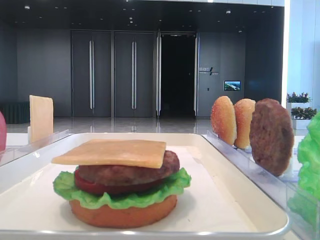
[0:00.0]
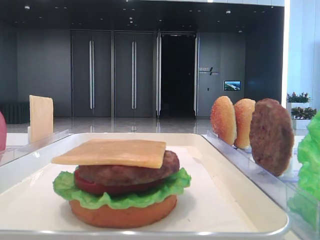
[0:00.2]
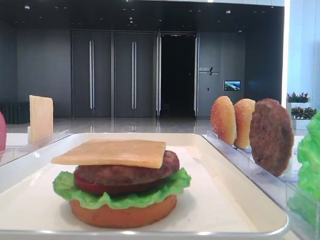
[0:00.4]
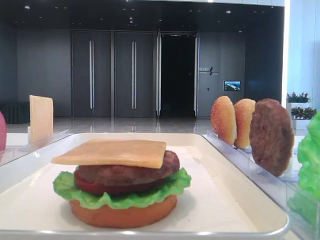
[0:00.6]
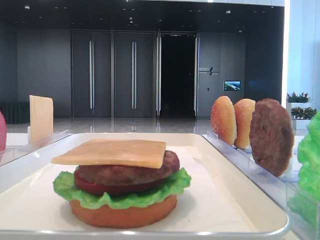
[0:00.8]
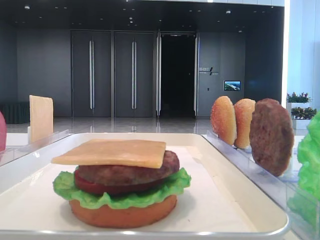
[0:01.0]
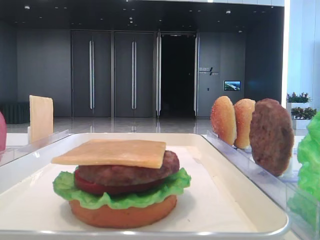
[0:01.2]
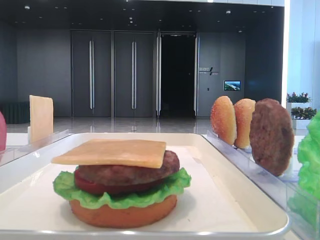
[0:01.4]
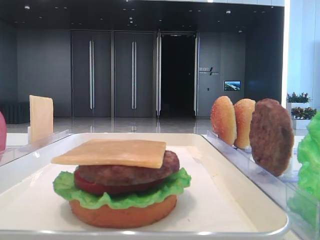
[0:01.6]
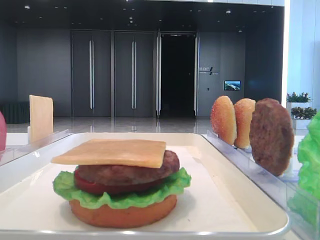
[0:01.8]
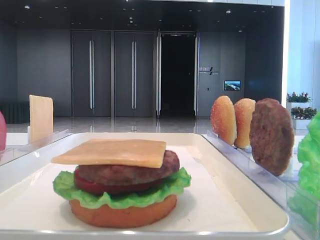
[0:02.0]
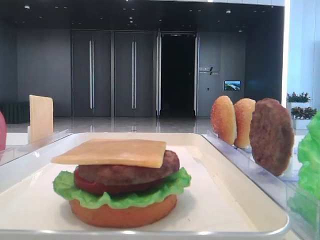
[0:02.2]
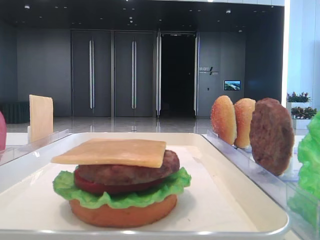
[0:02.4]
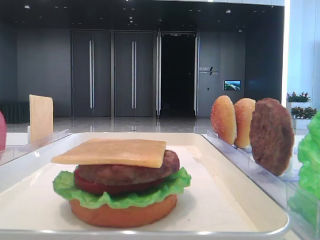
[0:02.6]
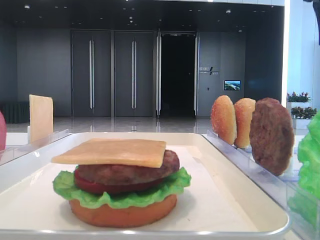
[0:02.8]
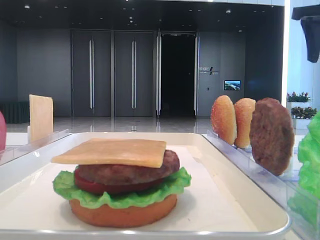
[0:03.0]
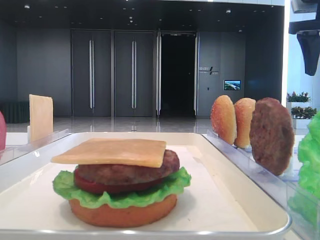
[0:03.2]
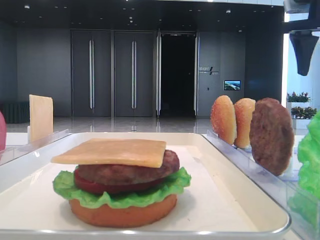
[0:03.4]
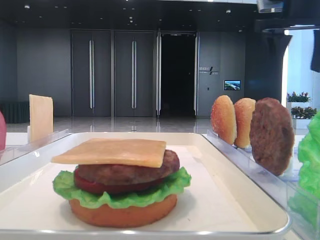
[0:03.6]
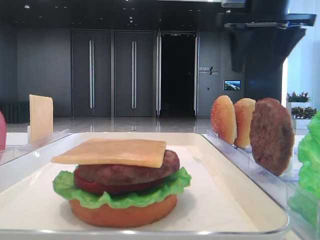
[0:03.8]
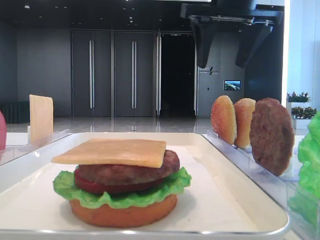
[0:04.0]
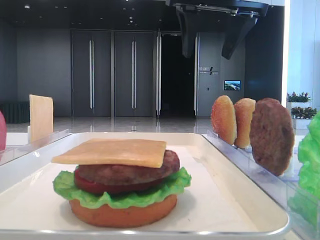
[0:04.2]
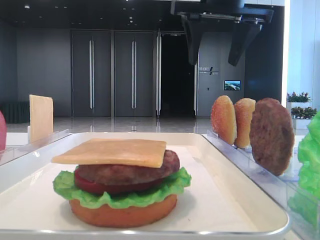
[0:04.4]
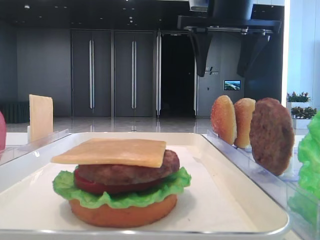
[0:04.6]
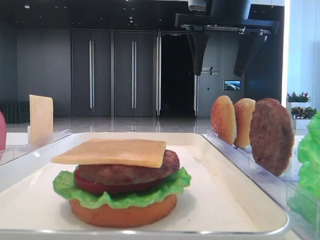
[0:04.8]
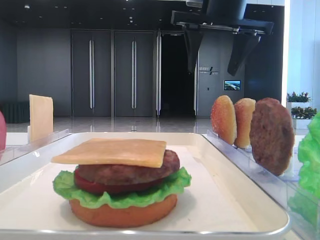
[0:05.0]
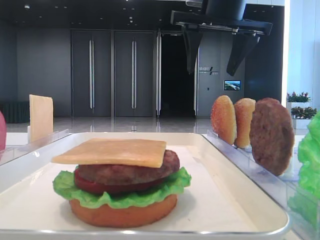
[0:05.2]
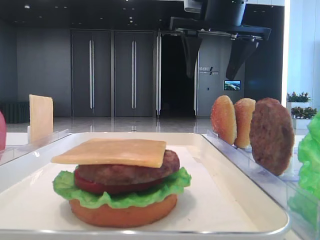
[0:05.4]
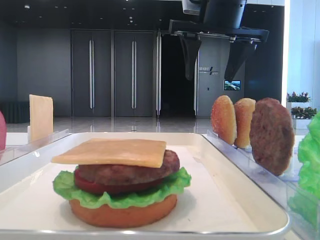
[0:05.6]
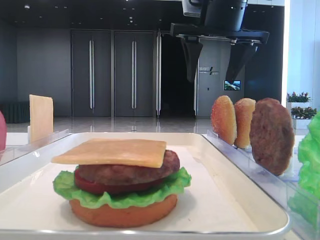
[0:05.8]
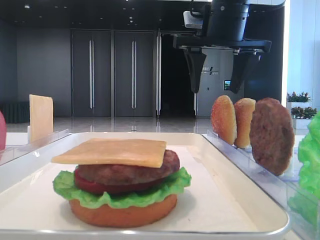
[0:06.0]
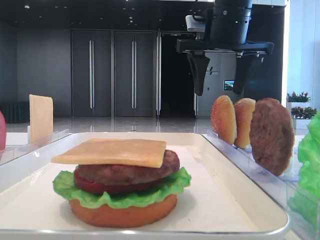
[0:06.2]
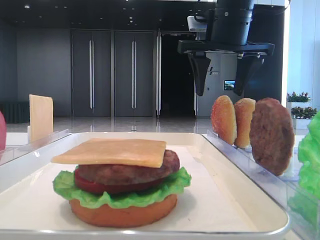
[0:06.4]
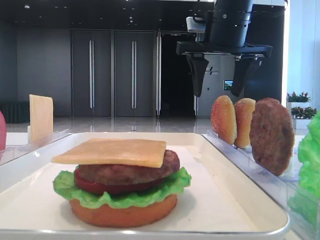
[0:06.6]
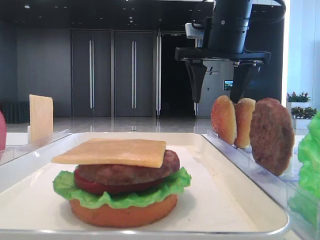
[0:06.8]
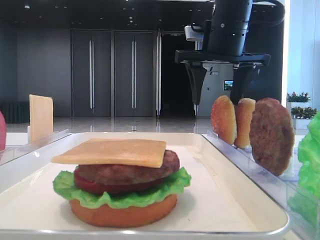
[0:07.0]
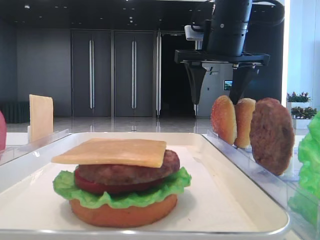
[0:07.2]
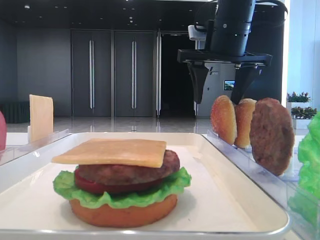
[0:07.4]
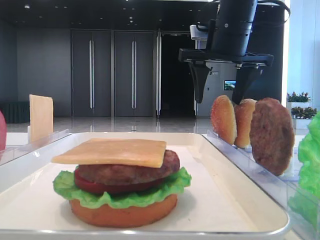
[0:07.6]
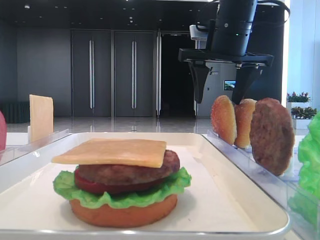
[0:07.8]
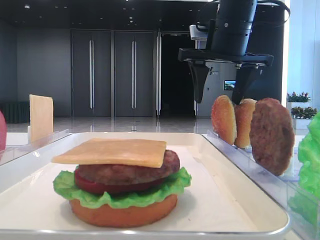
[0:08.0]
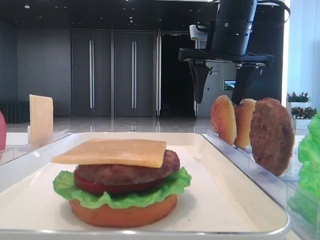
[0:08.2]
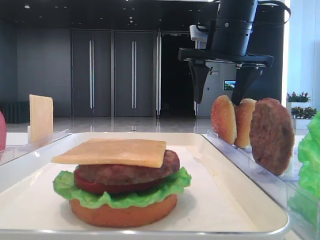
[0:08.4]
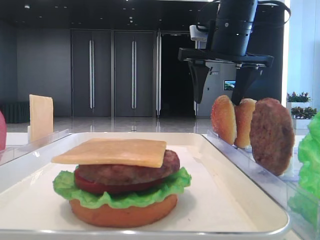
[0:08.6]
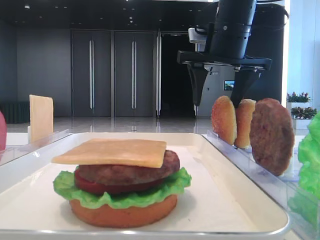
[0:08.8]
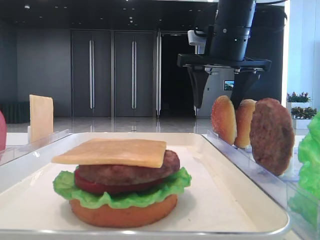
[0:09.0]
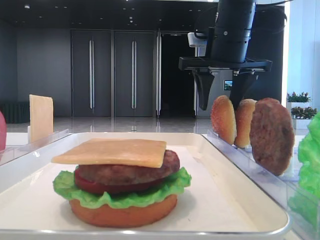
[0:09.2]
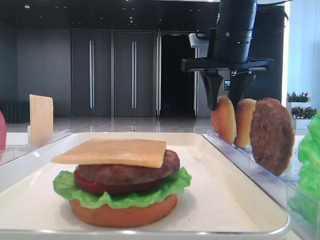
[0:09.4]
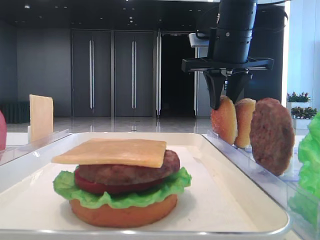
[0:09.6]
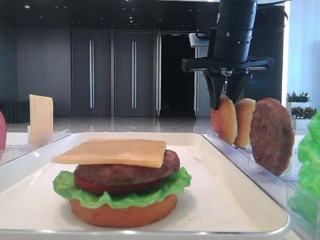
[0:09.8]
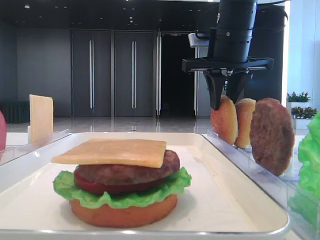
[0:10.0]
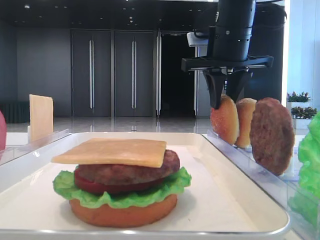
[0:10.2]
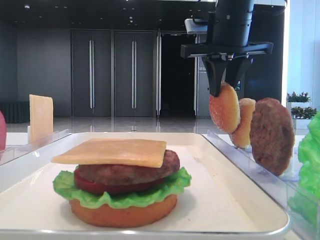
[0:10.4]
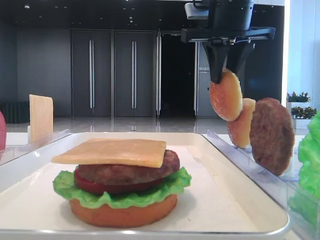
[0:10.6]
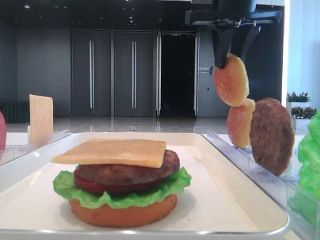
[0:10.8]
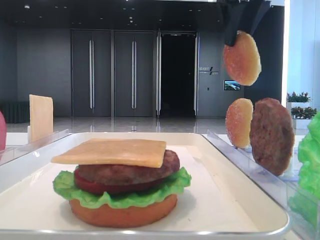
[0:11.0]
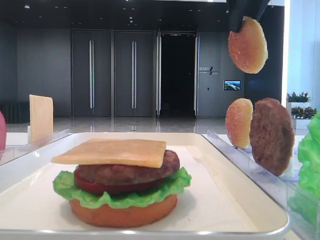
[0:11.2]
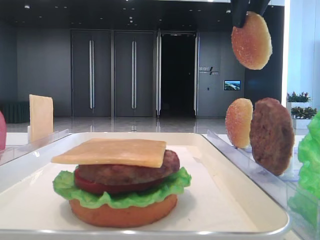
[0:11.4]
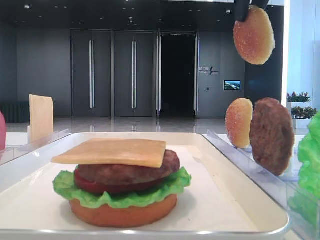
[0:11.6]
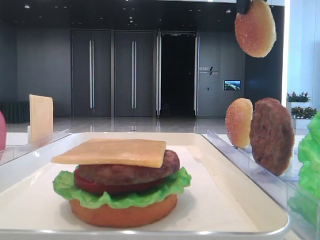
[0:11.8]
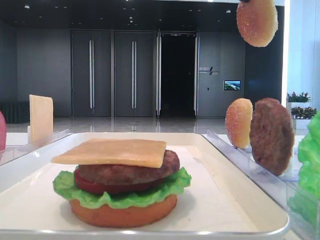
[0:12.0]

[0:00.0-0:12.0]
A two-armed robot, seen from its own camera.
Step, 0:00.0 to 0:10.0: Pick up the top bread slice with the right hand.
0:01.6 to 0:03.0: The right gripper shifts some 35 cm forward.
0:03.0 to 0:04.4: The right gripper is displaced to the left by roughly 20 cm.
0:04.4 to 0:06.0: The grippers move only a little.
0:06.0 to 0:07.6: The grippers stay close to where they were, moving slightly.
0:07.6 to 0:09.0: Both grippers stay about where they are.
0:09.0 to 0:10.4: The left gripper closes; the right gripper closes its fingers.
0:10.4 to 0:12.0: The right gripper travels upward and backward by roughly 15 cm.

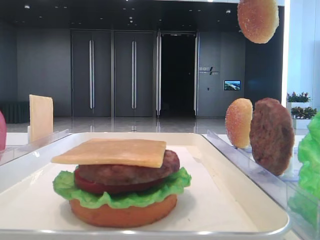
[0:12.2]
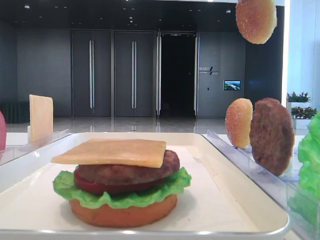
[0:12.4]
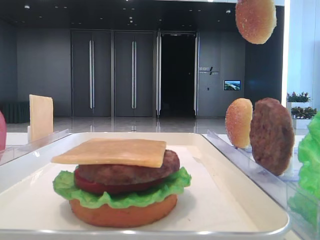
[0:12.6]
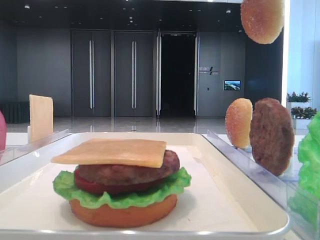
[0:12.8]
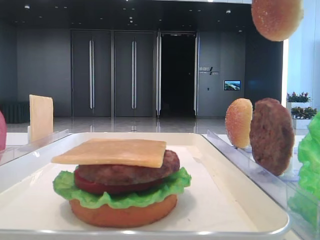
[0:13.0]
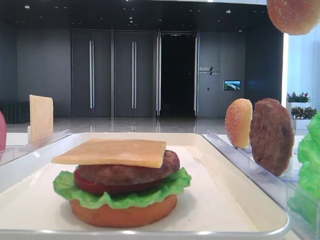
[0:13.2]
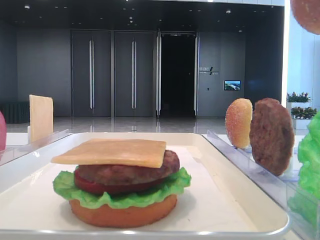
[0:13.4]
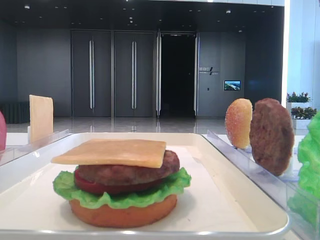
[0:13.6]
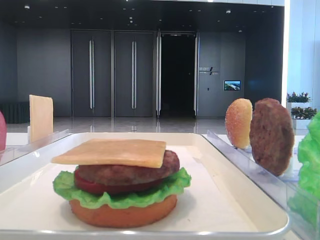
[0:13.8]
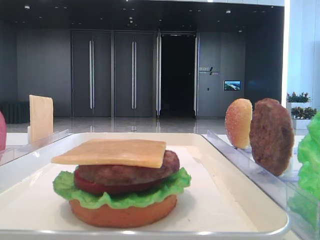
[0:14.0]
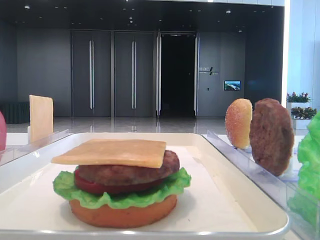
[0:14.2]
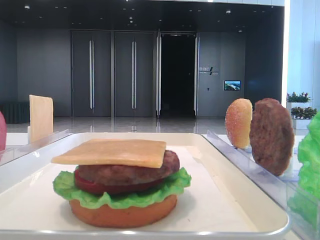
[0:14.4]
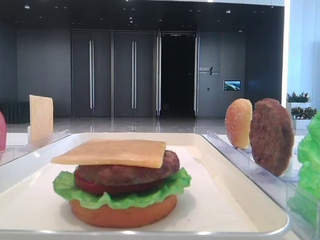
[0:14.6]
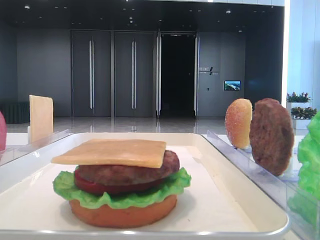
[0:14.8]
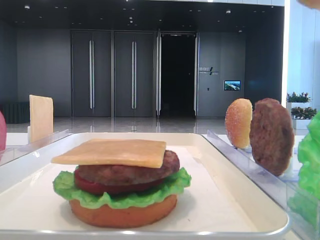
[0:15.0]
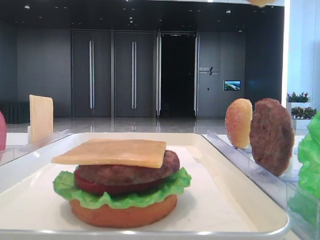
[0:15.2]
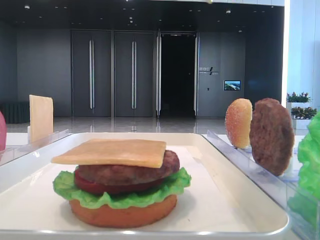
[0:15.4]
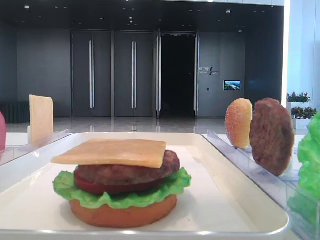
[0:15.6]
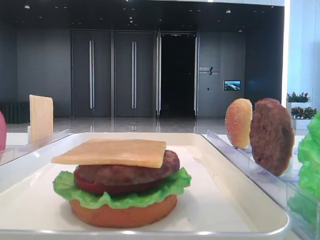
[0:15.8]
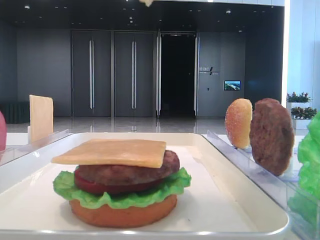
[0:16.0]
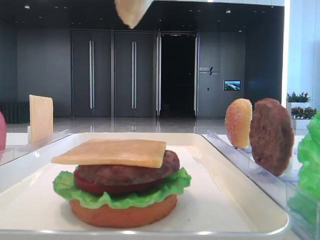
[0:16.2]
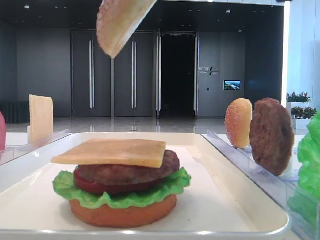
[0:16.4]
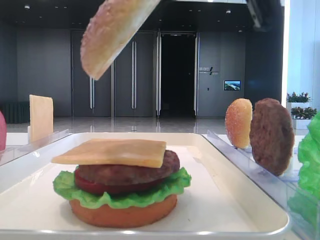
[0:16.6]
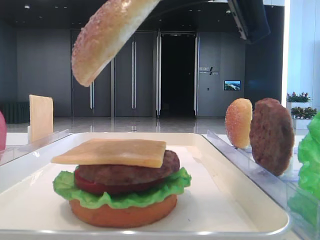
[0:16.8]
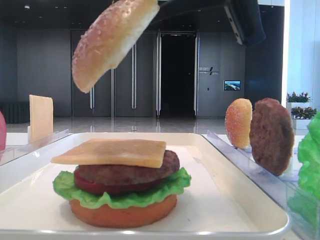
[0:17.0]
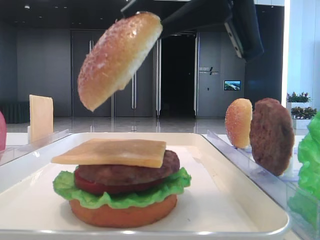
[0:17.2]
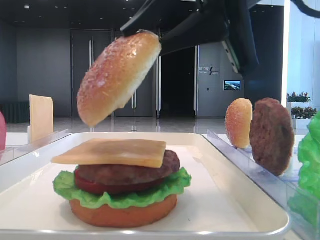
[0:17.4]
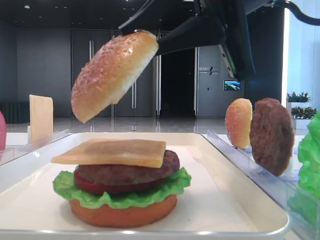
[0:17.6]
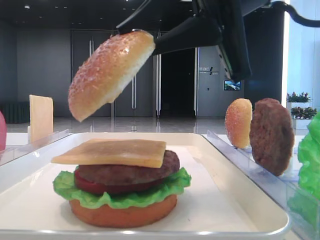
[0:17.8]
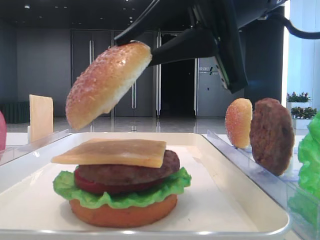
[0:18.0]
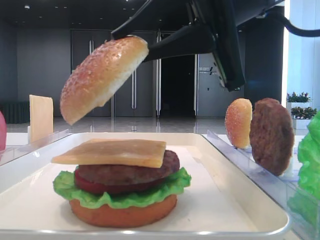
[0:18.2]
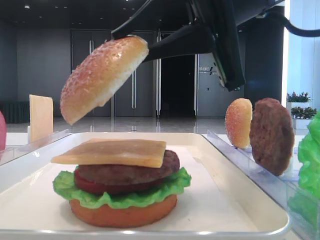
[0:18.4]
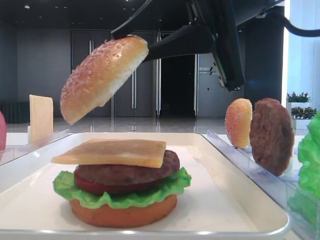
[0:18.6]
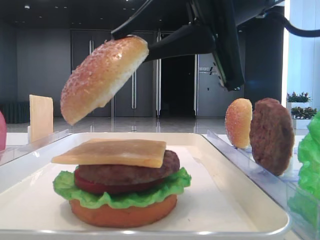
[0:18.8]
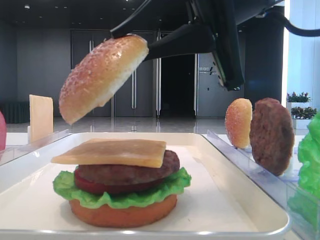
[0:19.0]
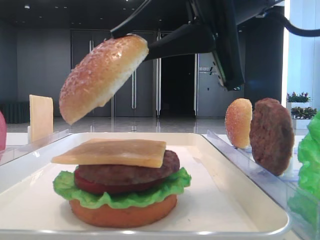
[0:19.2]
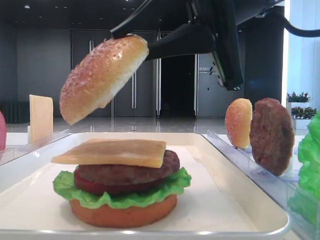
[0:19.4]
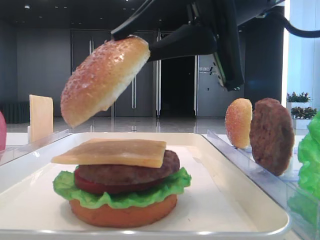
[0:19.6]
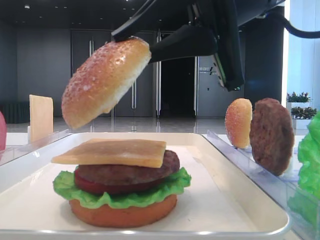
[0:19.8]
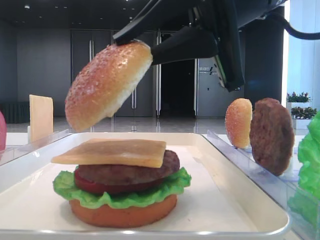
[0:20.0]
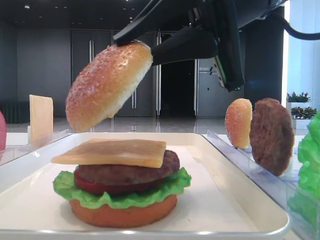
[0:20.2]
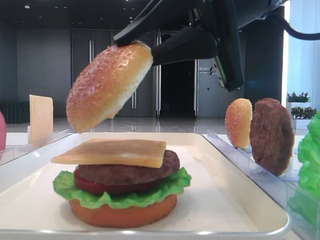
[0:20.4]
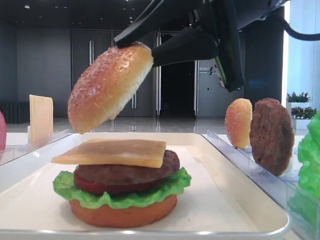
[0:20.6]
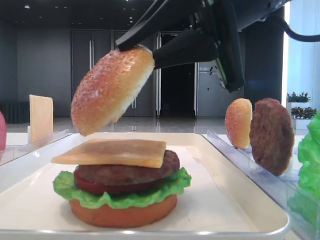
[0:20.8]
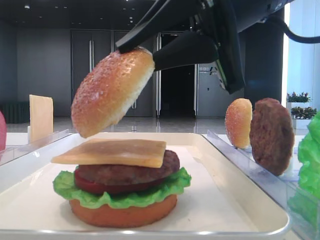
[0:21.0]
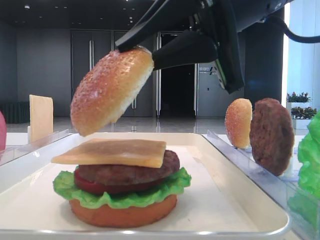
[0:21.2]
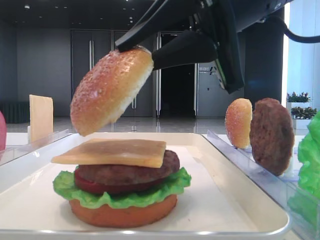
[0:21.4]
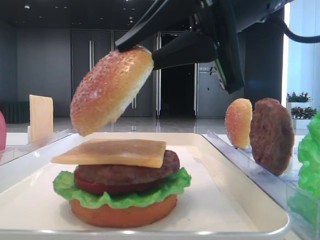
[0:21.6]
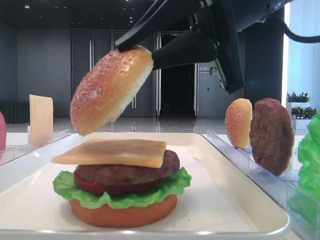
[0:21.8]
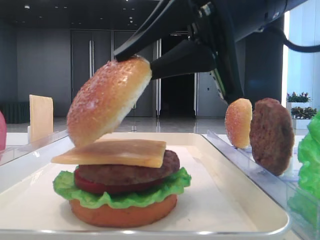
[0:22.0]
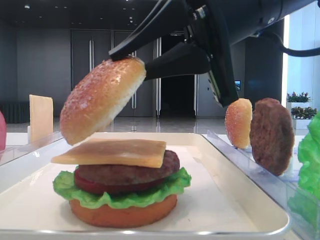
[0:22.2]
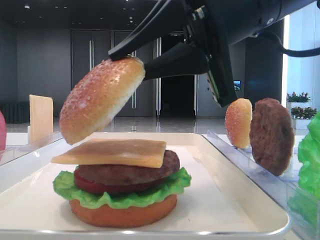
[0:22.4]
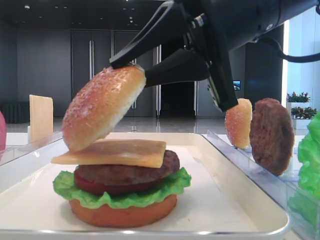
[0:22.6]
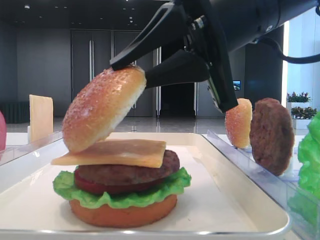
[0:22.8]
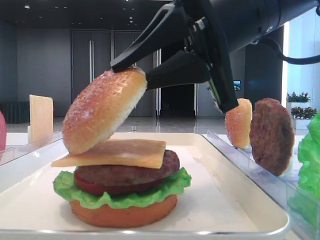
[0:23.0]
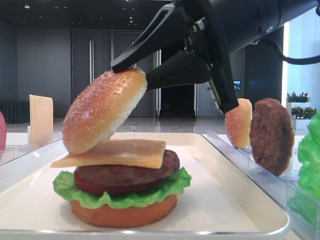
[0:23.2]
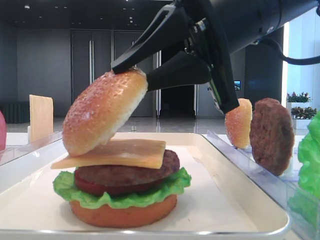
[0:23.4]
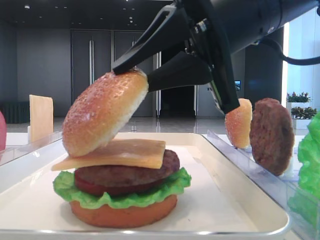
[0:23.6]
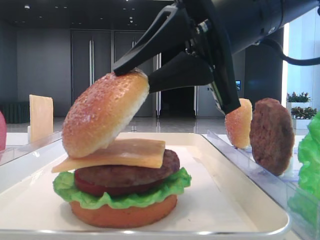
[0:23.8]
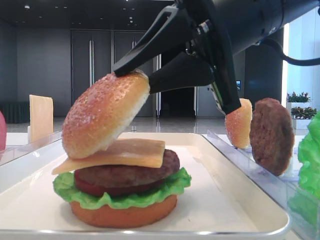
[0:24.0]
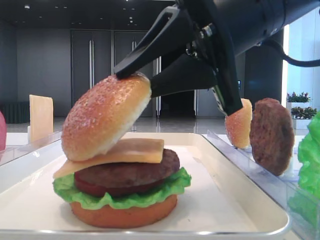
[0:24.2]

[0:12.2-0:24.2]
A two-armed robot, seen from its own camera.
0:12.2 to 0:13.8: The right gripper shifts roughly 15 cm backward.
0:15.2 to 0:16.6: The right gripper shifts roughly 15 cm downward, to the left and forward.
0:16.6 to 0:18.2: The right gripper shifts some 5 cm downward.
0:18.2 to 0:19.8: Neither gripper changes place.
0:19.8 to 0:21.2: Neither gripper changes place.
0:21.2 to 0:22.6: The grippers make only small movements.
0:22.6 to 0:24.2: Neither gripper changes place.
